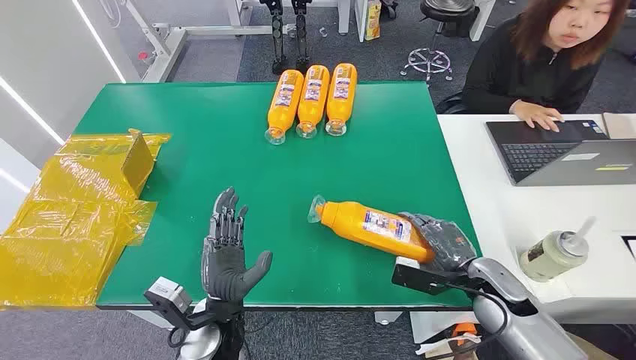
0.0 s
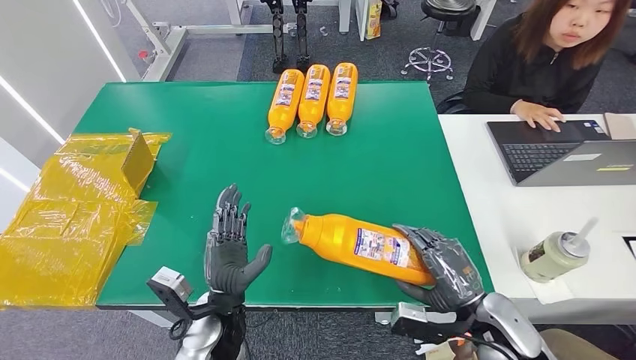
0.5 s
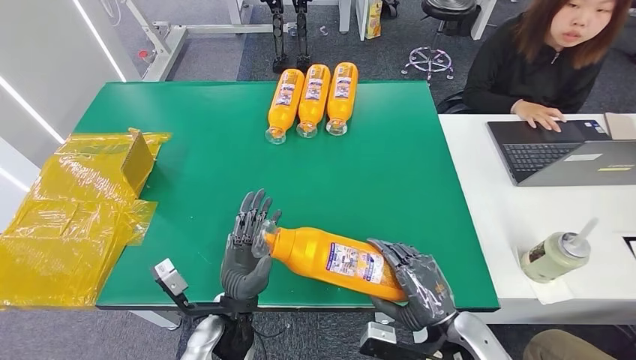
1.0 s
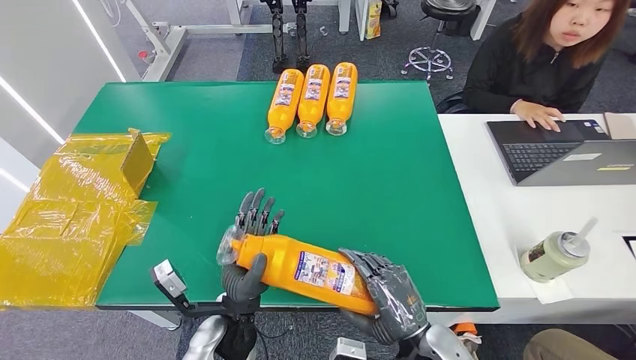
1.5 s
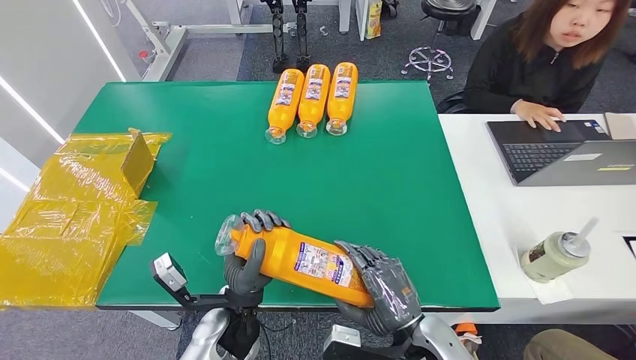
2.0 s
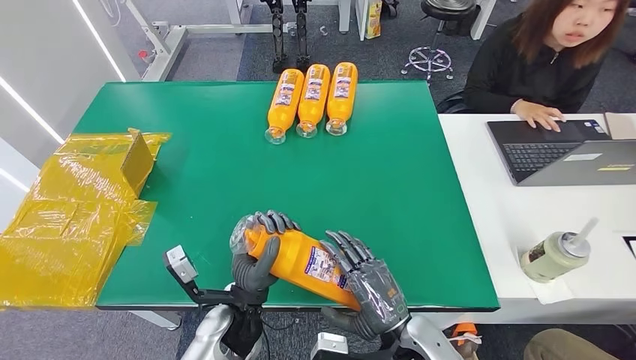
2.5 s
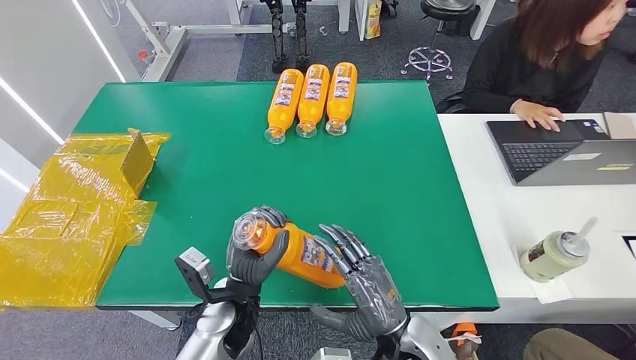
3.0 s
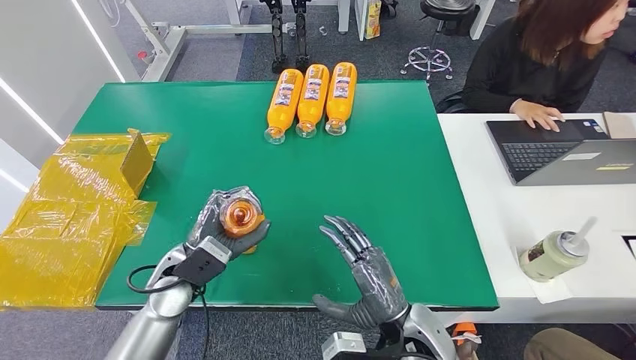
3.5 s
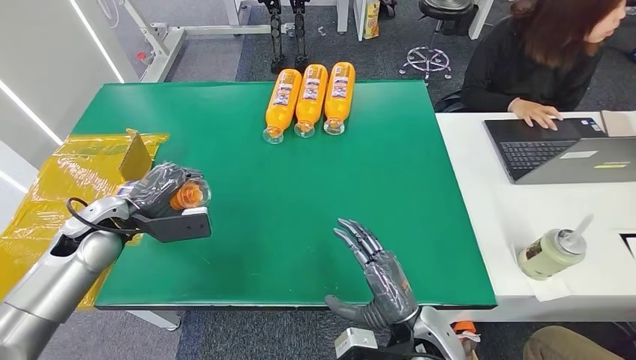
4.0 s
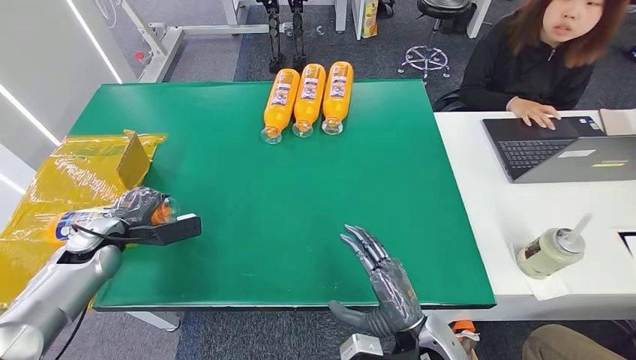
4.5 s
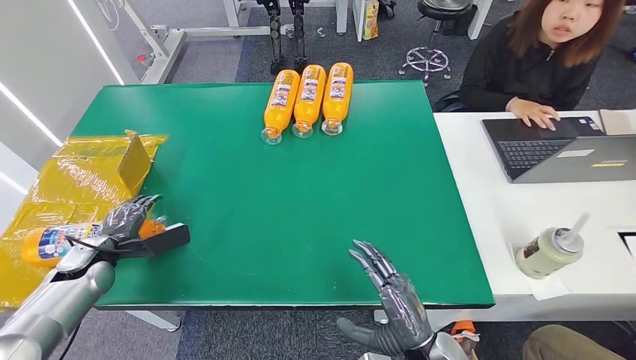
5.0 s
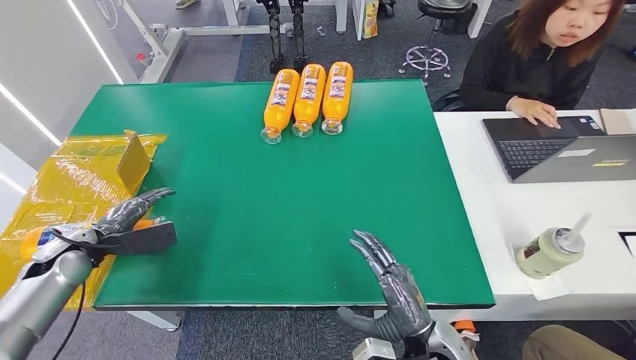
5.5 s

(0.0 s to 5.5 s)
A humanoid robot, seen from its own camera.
Step, 0.0 s - 2.0 s: Pick up the bottle from the table.
Step, 2.5 s - 5.5 s: Turn the bottle to the front side.
2.0 s - 3.5 s: The left hand goes roughly 15 cm to the left and forward.

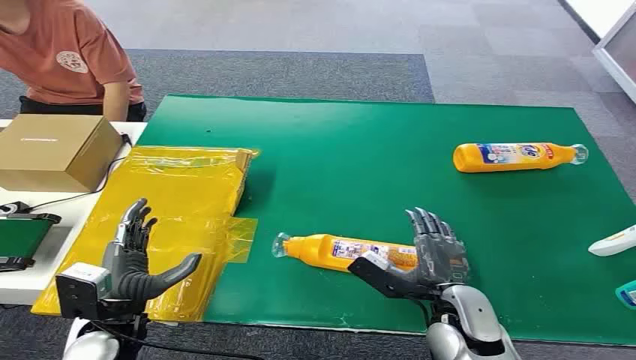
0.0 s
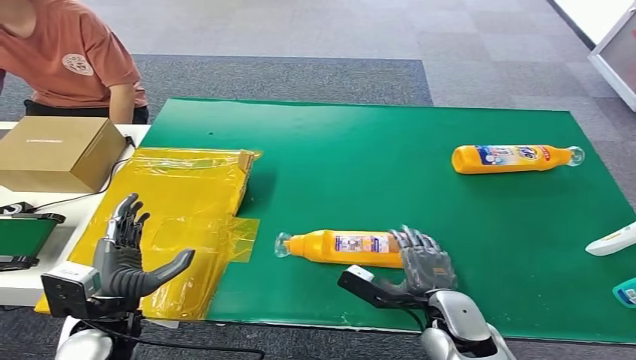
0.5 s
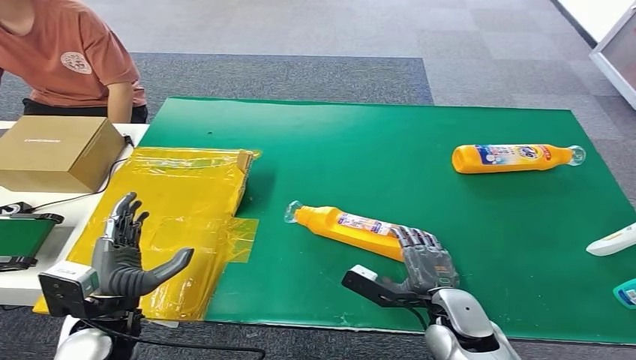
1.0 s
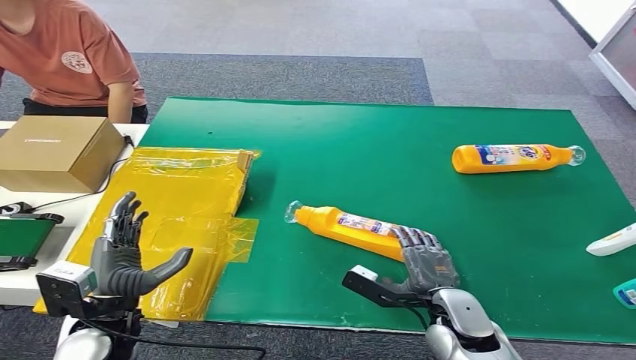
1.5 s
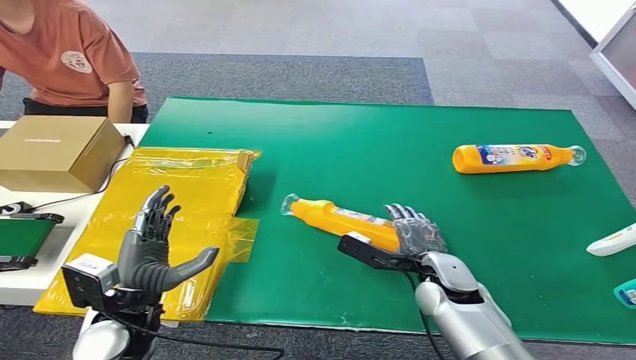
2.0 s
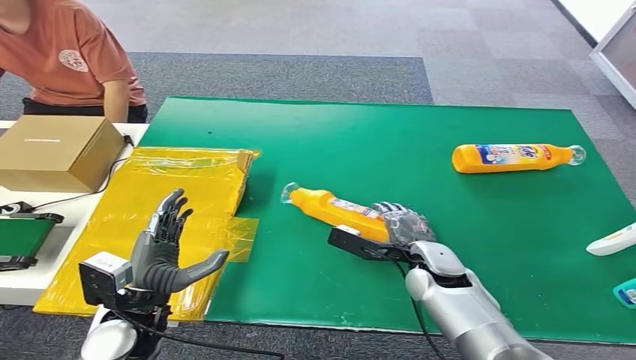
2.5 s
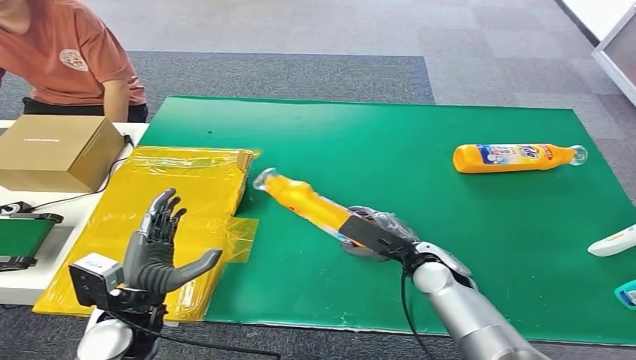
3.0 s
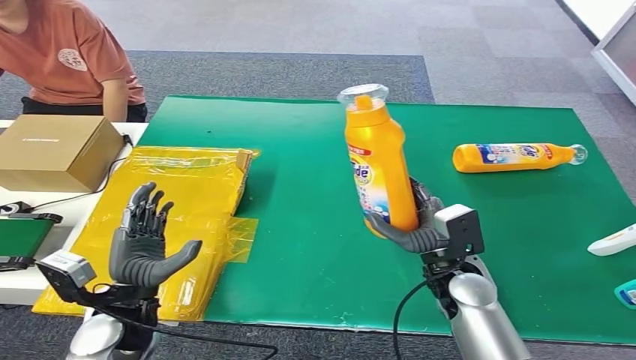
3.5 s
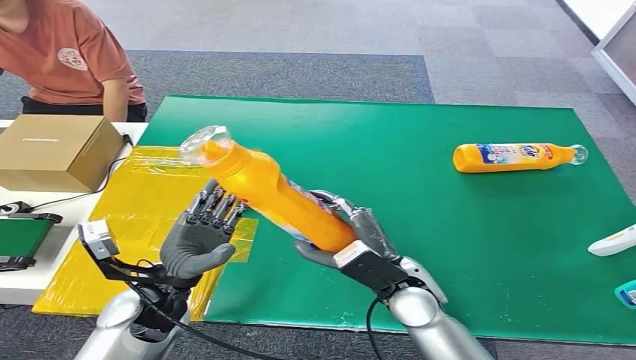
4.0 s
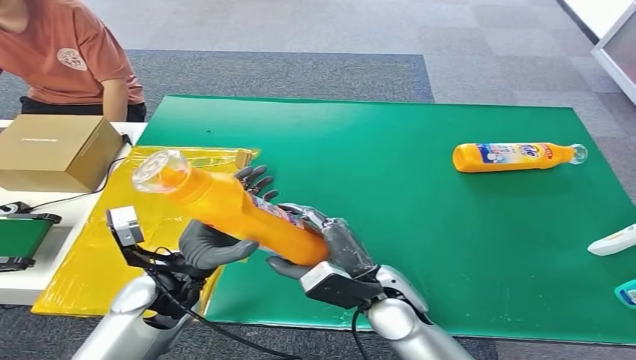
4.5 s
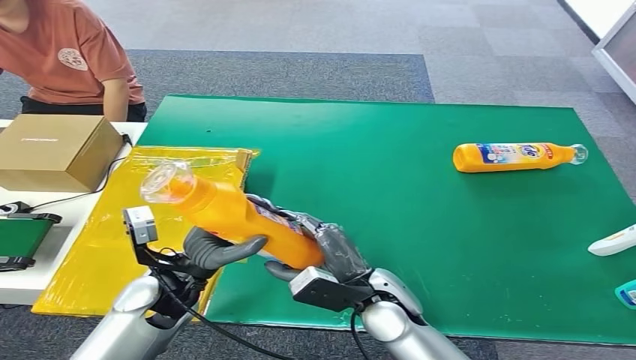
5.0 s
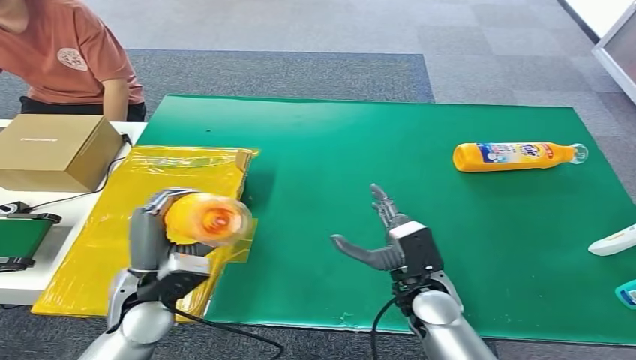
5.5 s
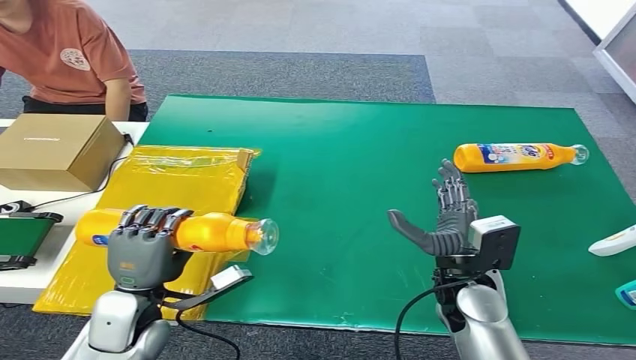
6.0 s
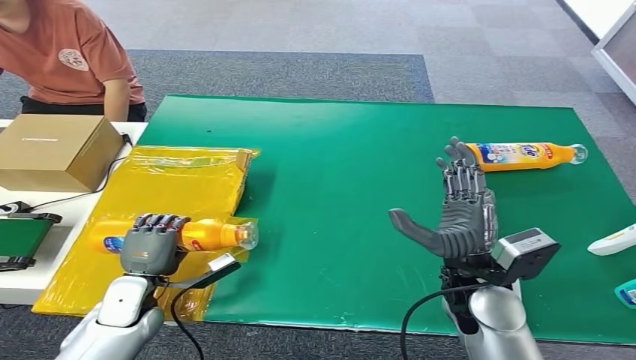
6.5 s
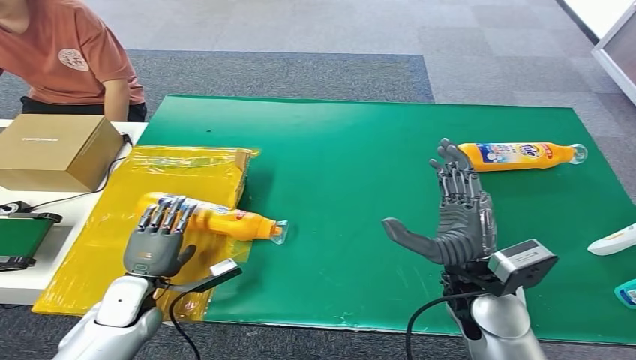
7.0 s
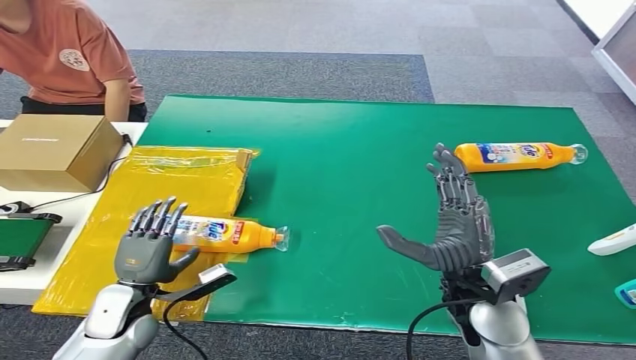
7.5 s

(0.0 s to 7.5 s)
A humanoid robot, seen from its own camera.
Step, 0.0 s - 3.5 s: Pick up the bottle from the table.
Step, 4.0 s - 7.5 s: Turn the bottle to the front side.
5.5 s - 7.5 s: The right hand heads upward, covering approximately 10 cm. The left hand shifts approximately 10 cm downward and to the left.

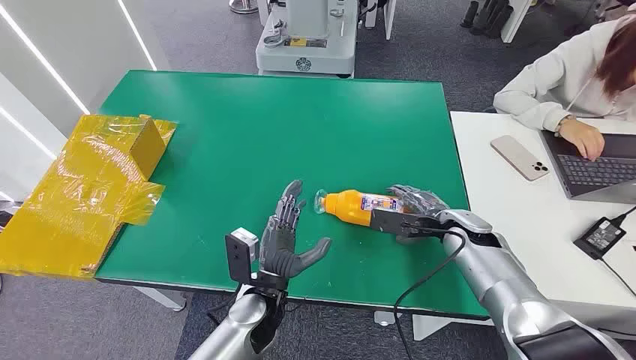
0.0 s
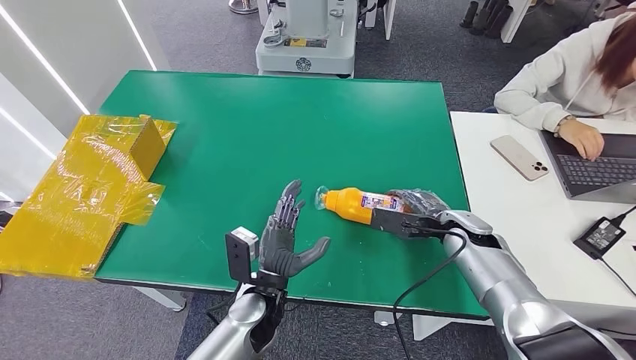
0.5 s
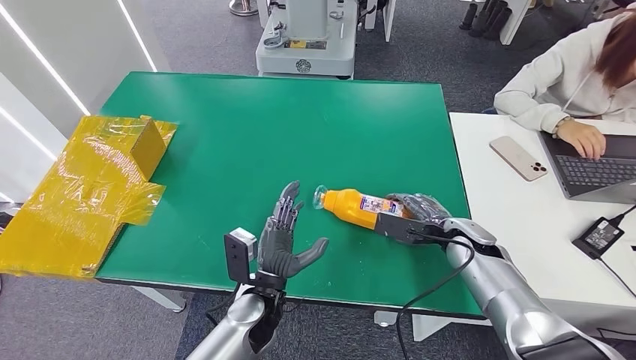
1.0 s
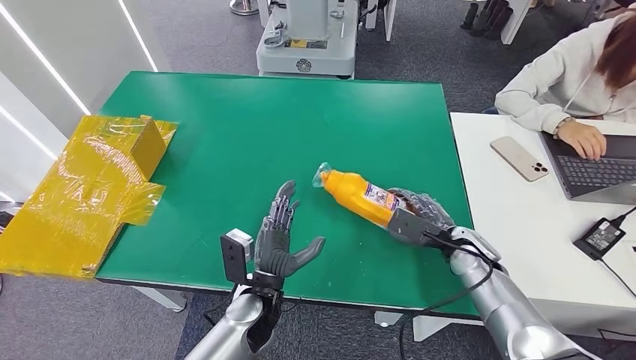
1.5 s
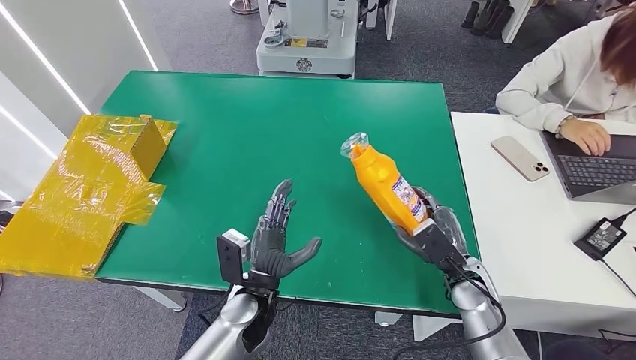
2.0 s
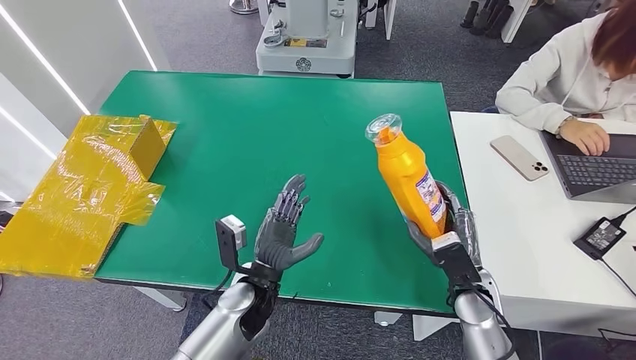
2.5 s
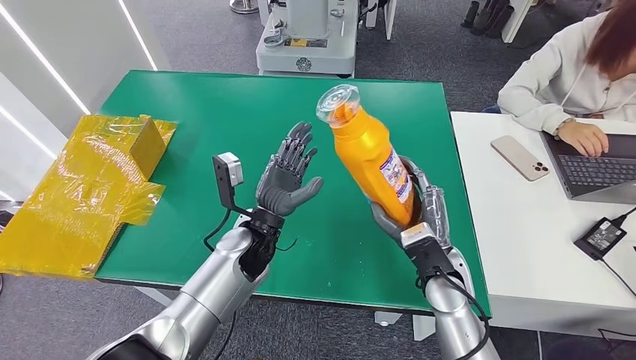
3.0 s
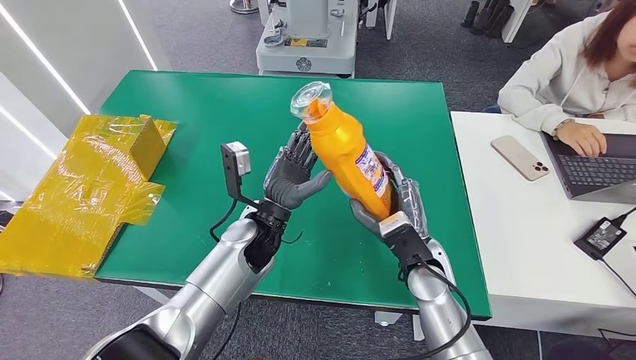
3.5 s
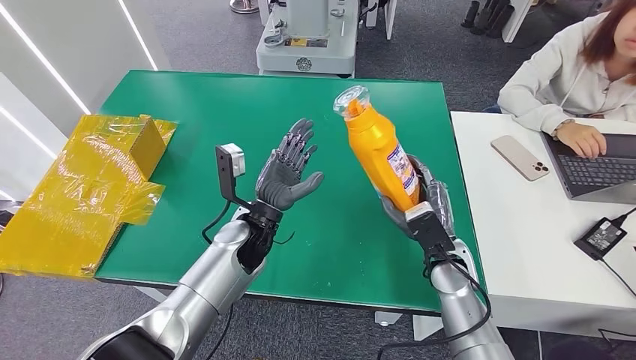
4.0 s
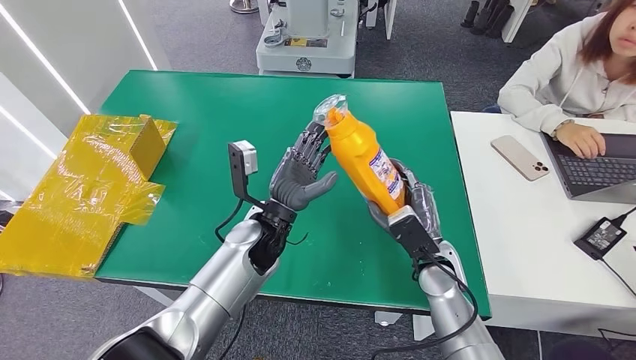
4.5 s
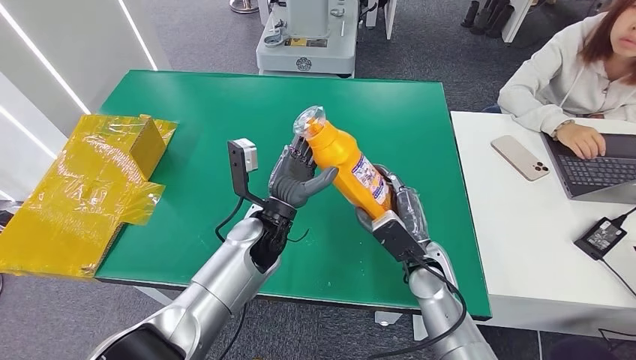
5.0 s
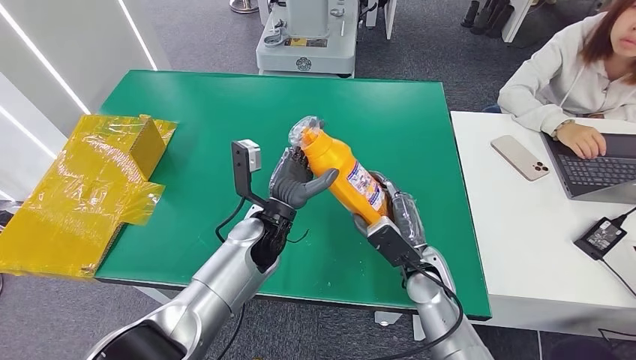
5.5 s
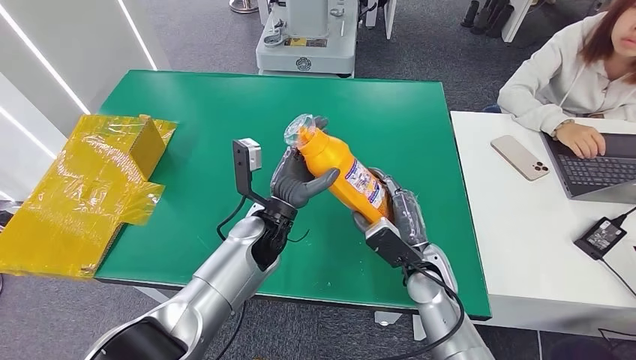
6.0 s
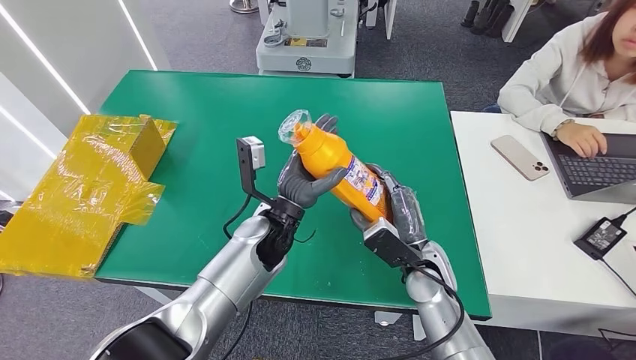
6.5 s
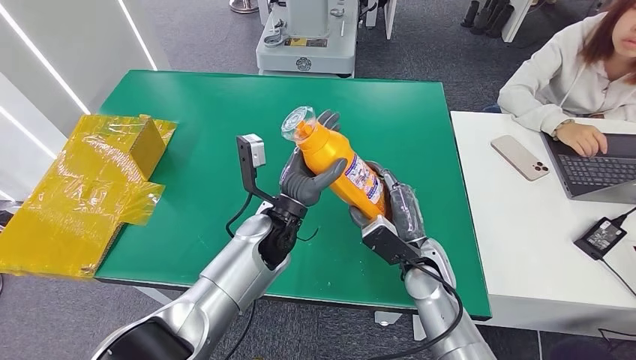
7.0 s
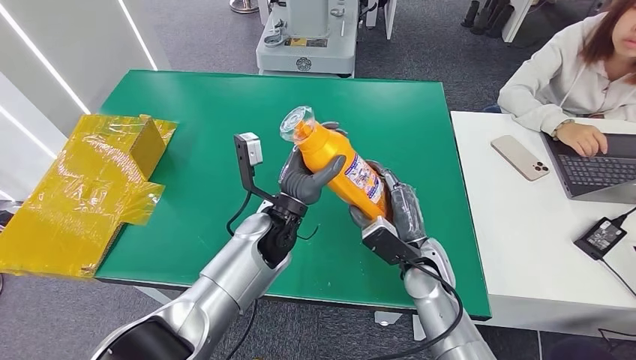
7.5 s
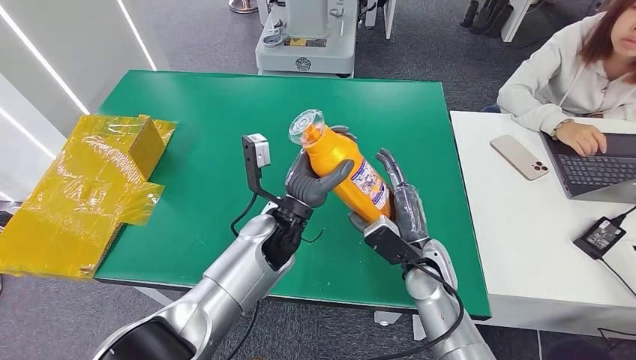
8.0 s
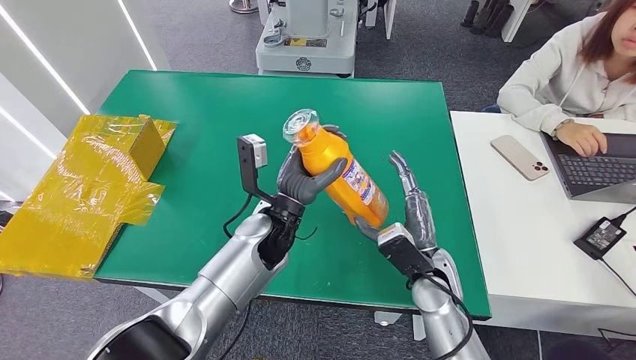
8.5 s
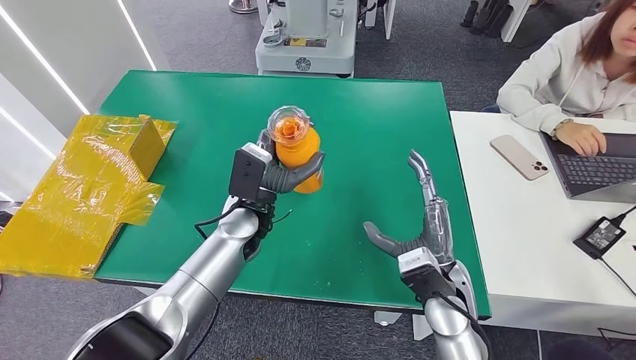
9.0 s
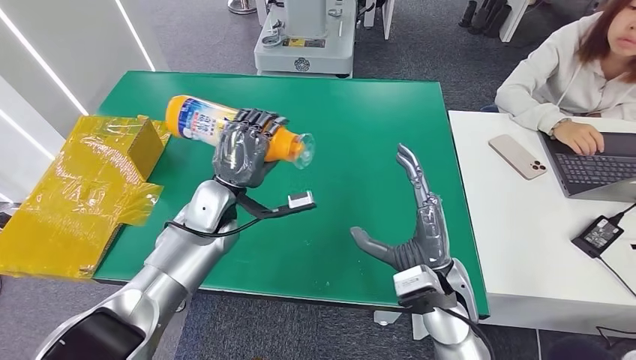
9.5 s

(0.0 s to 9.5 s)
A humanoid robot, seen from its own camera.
Step, 0.0 s - 3.5 s: Pick up the bottle from the table.
2.0 s - 4.0 s: The right hand moves to the left, about 5 cm, while the left hand travels forward and upward by roughly 15 cm.
4.0 s - 7.5 s: The hands stay close to where they were, moving slightly.
